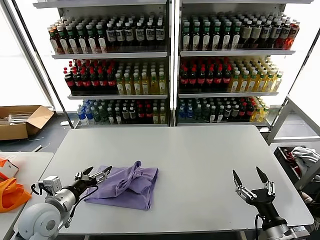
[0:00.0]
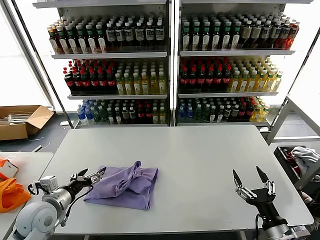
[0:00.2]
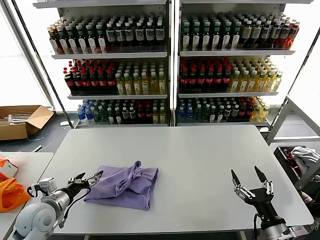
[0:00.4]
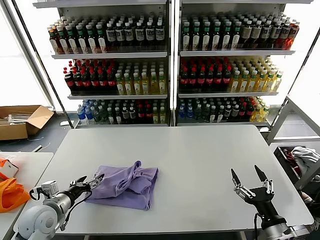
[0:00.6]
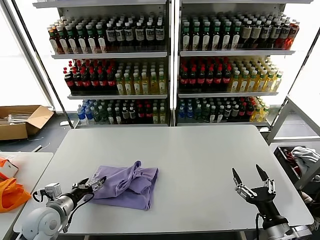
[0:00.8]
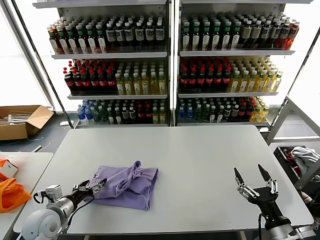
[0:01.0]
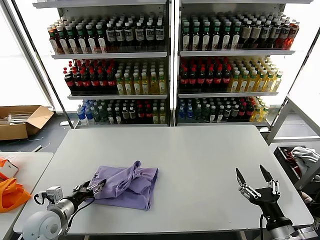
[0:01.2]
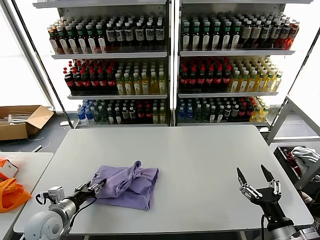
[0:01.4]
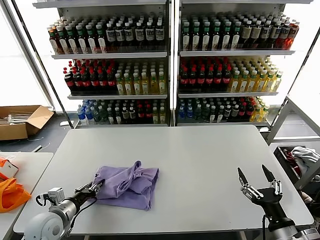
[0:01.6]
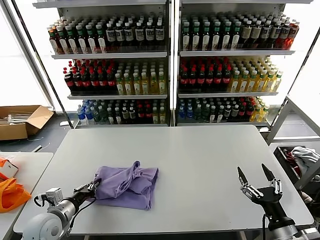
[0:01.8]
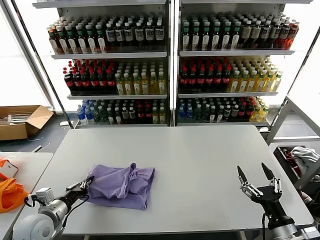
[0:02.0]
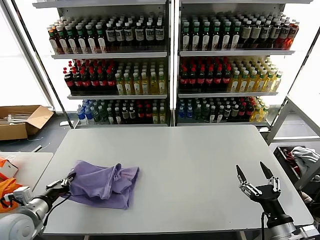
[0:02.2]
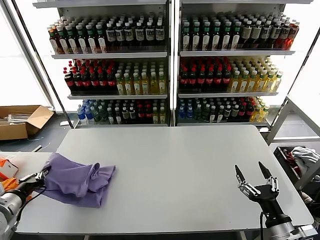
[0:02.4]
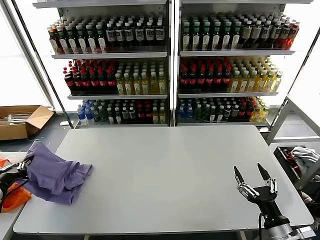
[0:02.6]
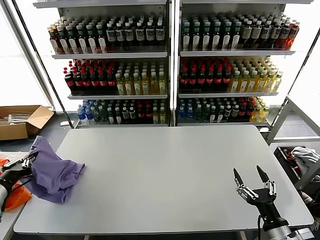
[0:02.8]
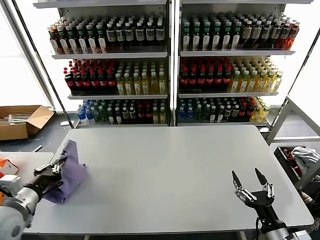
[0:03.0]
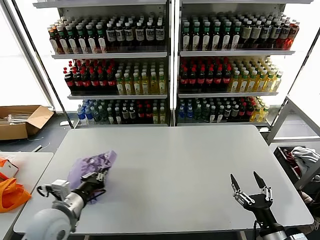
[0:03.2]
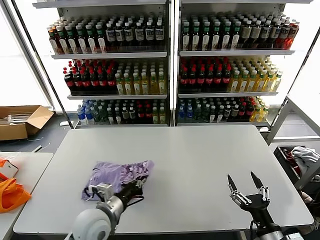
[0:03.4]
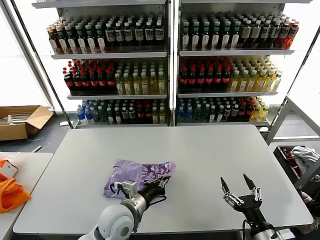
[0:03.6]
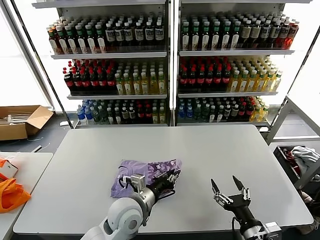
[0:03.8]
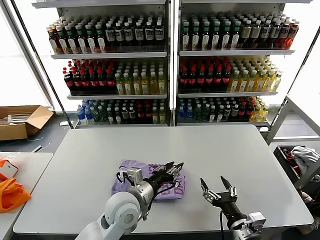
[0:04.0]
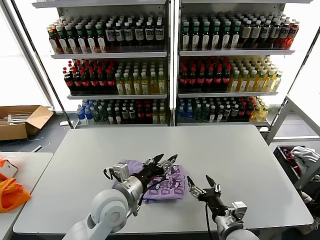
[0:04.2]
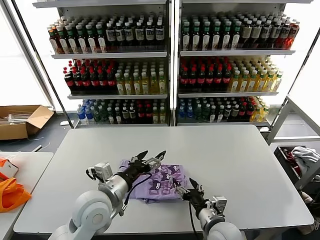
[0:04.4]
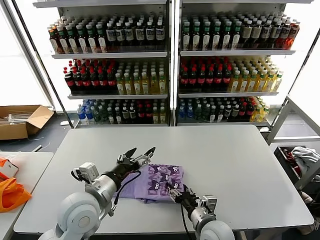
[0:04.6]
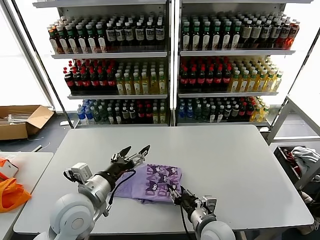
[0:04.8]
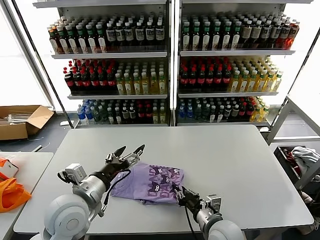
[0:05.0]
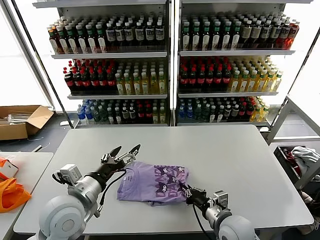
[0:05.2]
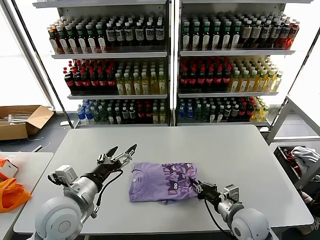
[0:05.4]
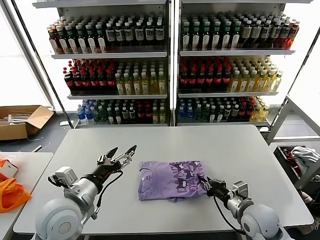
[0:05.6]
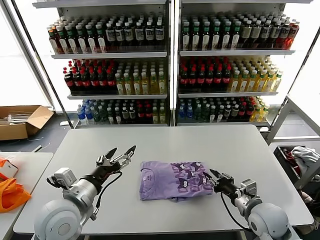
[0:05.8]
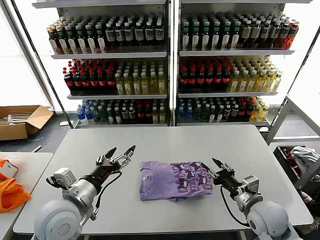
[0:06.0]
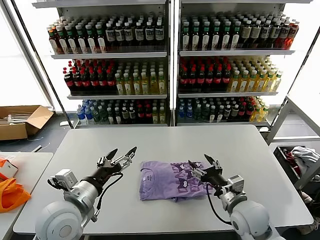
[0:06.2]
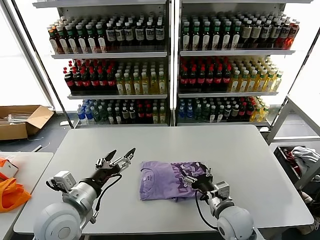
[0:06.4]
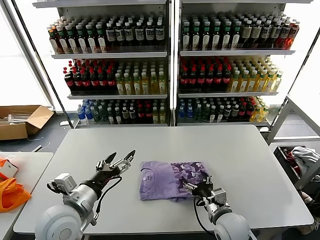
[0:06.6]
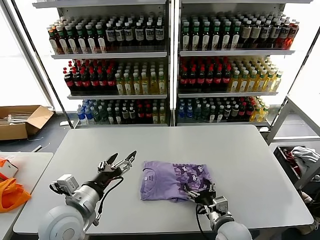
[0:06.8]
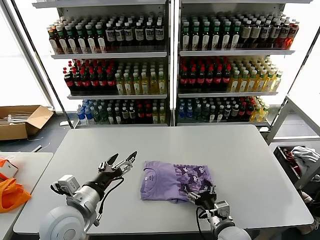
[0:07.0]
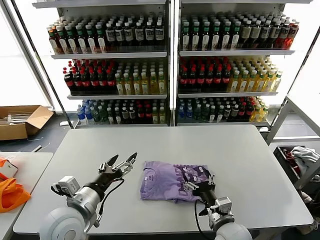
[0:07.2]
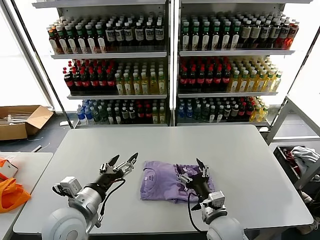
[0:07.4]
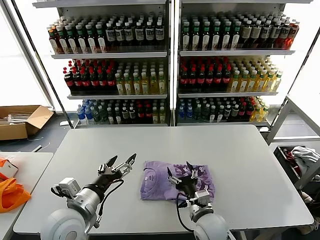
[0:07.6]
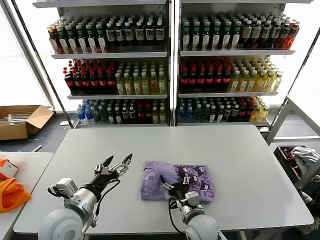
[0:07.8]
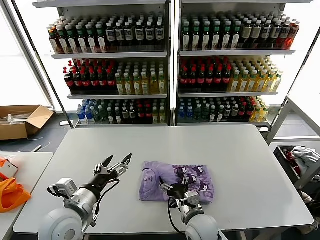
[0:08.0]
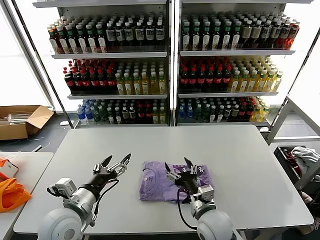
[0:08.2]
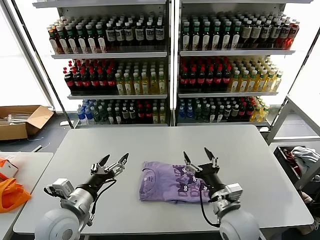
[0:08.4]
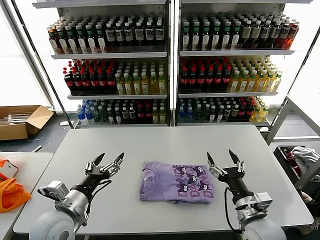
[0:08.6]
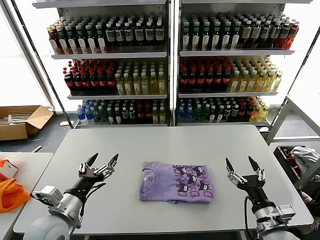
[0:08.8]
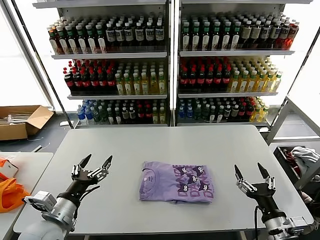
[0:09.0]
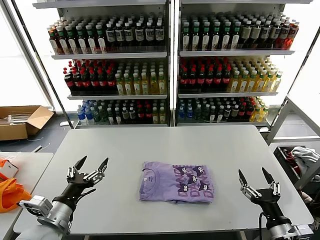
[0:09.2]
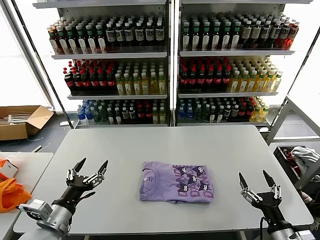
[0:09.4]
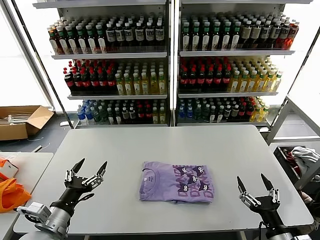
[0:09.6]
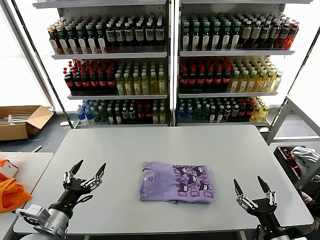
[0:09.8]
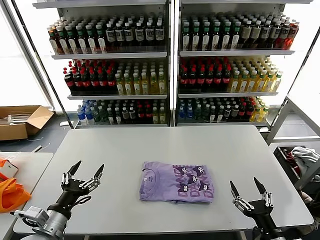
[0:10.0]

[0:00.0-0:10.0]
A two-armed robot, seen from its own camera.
Task of the whole recording: fold and organize the clothes.
Step, 0:00.0 to 0:03.8: Flip the folded clothes over with left gripper.
Step, 0:04.0 to 0:08.0: Drag the clothes to the center of the table.
0:00.0 to 0:01.4: The left gripper shifts about 5 cm downward.
0:01.4 to 0:02.8: The left gripper moves upward and to the left, roughly 20 cm, and closes up.
0:02.8 to 0:04.2: The right gripper heads to the left and forward, covering roughly 10 cm. The left gripper shifts about 35 cm to the right, and opens up.
0:04.2 to 0:05.8: The right gripper shifts about 10 cm forward and to the right, and closes up, while the left gripper is displaced to the left by some 10 cm, and opens its fingers.
0:05.8 to 0:07.2: The right gripper shifts approximately 10 cm to the left, and opens.
0:07.2 to 0:08.6: The right gripper goes some 5 cm upward, and moves approximately 10 cm to the left and comes back.
0:08.6 to 0:10.0: The right gripper shifts some 15 cm backward and to the right, while the left gripper heads backward, covering roughly 5 cm.

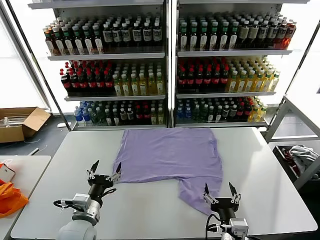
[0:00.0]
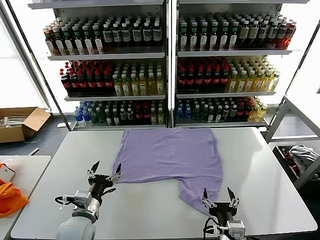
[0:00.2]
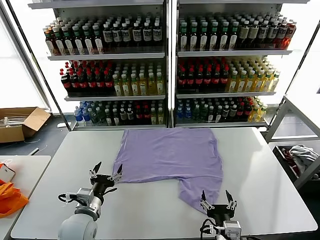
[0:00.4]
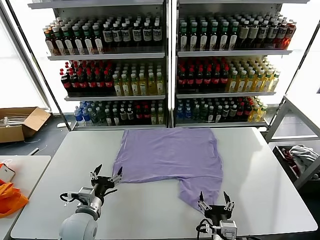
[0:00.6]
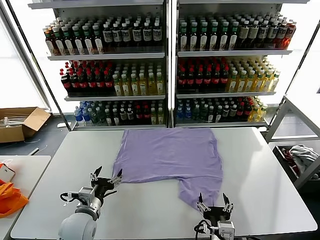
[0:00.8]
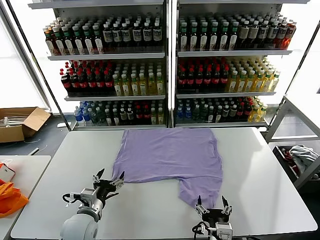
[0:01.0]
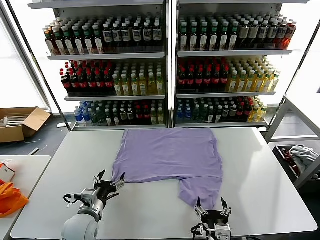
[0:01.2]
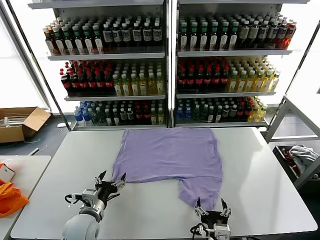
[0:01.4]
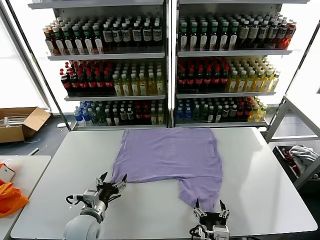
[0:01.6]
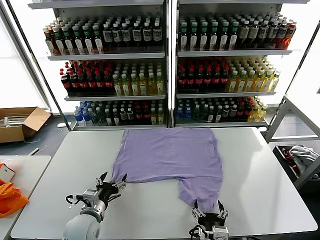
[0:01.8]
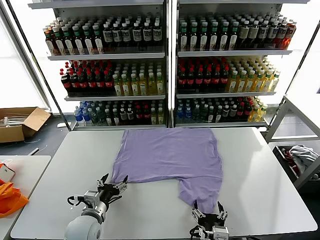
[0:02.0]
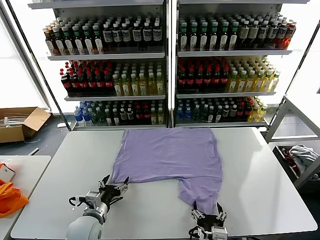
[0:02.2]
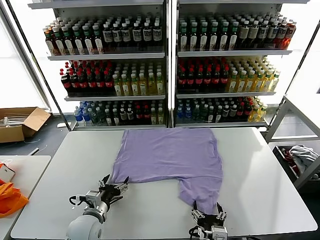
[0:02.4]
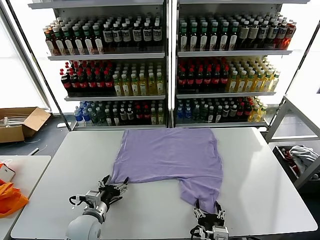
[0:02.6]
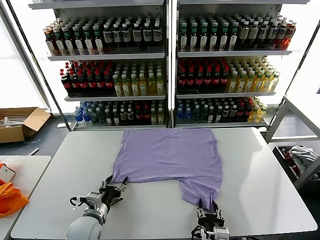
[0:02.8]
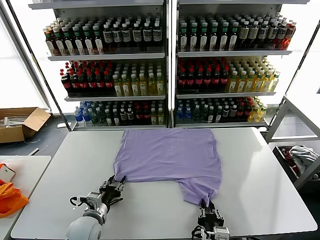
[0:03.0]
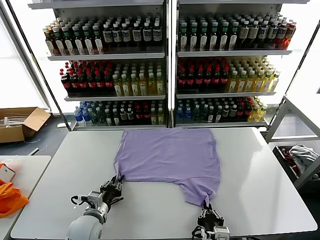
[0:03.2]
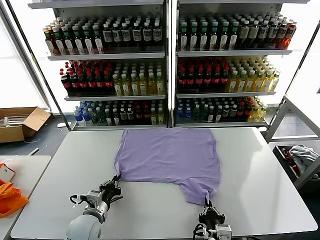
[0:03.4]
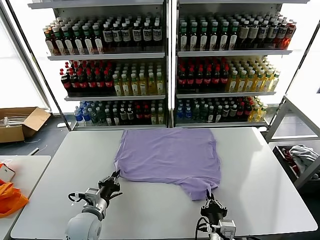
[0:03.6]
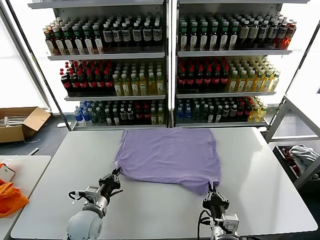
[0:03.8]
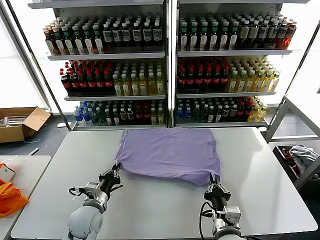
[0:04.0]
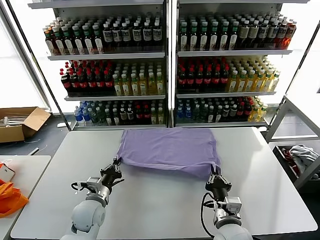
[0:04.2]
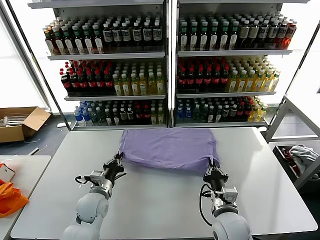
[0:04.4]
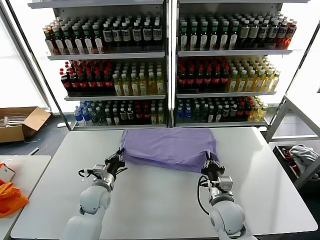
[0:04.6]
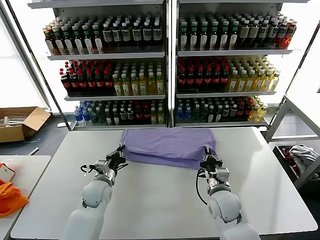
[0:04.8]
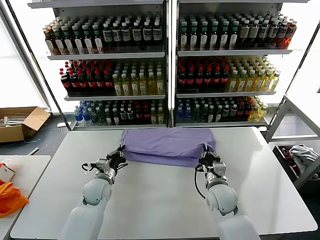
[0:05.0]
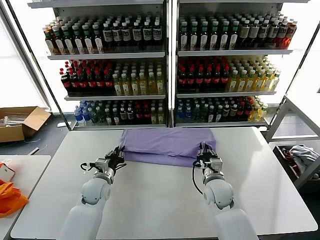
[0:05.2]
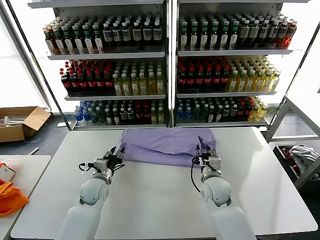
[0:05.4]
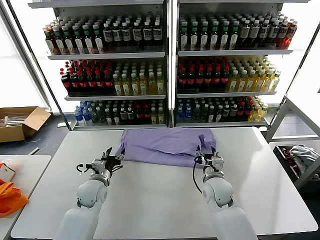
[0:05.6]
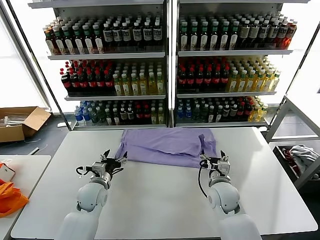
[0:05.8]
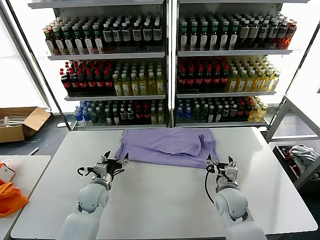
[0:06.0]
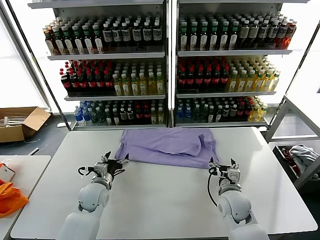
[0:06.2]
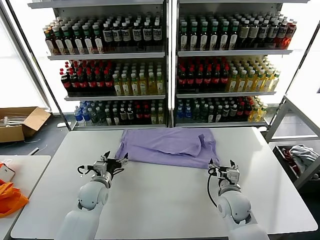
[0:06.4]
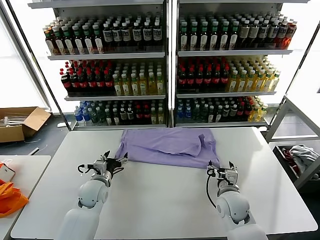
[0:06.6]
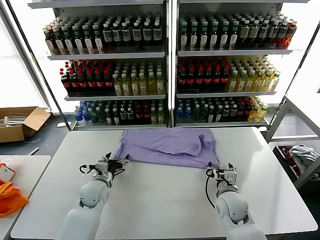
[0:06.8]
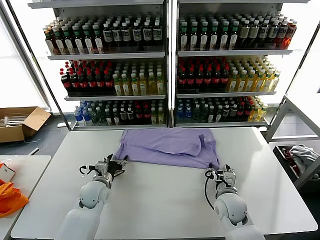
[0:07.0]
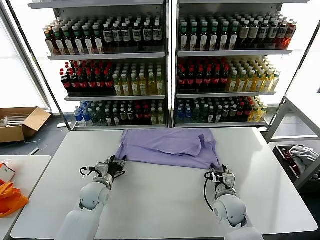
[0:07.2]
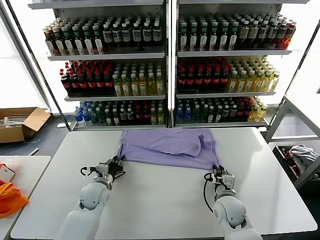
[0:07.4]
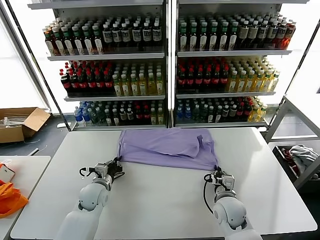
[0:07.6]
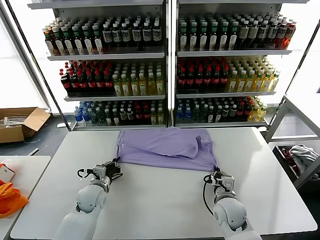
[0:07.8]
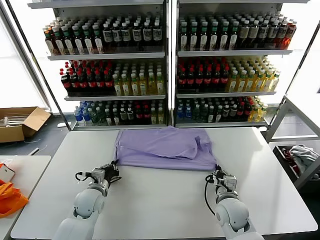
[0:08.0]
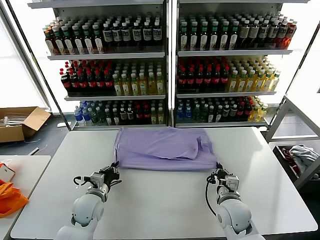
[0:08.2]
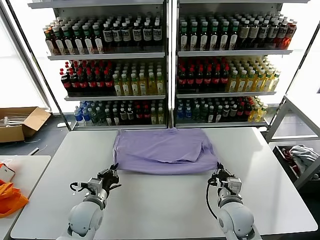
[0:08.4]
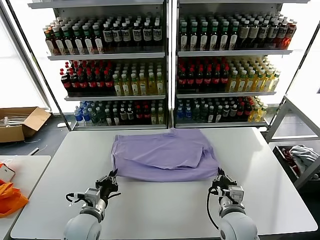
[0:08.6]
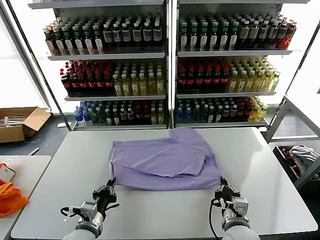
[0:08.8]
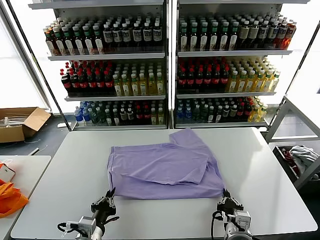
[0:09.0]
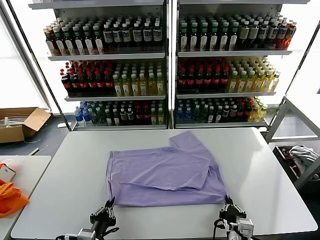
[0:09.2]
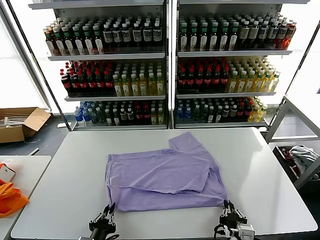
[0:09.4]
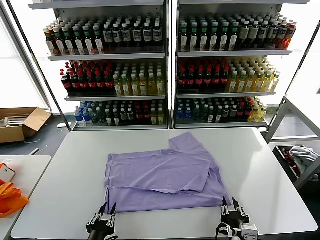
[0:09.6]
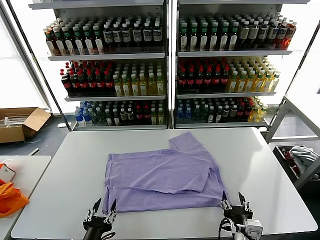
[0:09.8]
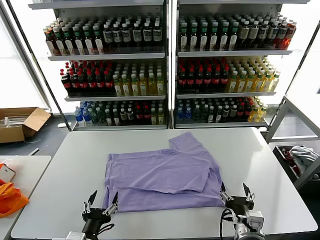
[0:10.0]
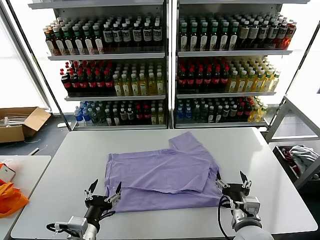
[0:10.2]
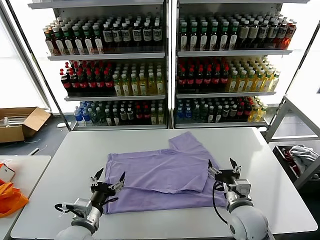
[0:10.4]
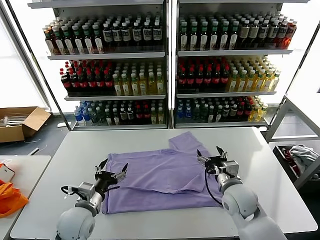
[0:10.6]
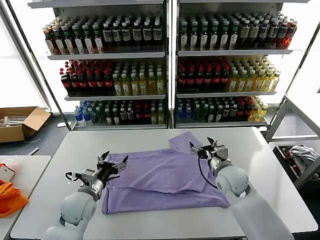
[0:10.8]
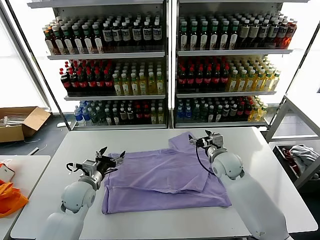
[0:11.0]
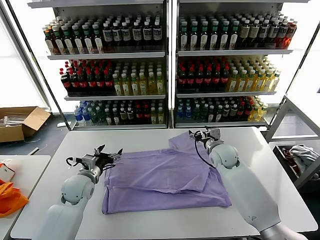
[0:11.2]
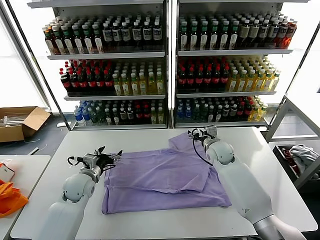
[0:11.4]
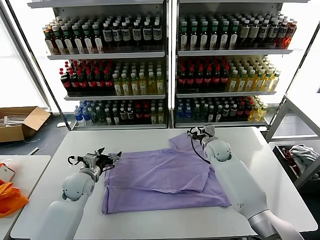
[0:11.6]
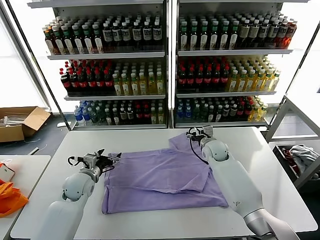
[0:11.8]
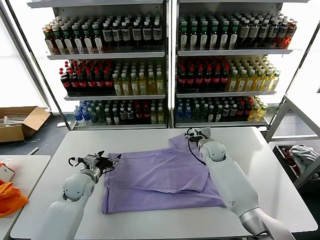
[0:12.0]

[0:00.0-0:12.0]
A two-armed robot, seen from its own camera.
Task of the whole recording: fold and organize the clothes.
Step, 0:00.0 to 0:03.6: use both grippers simultaneously to clamp the lower edge of the clothing fabric.
Step, 0:03.8 to 0:05.4: use both grippers to drag the lower edge of the fabric forward and fold it over the upper edge.
Step, 0:05.6 to 0:09.6: Drag the clothes downward with both gripper.
0:01.6 to 0:03.0: The right gripper closes up. The left gripper closes up.
0:03.0 to 0:04.4: The left gripper travels forward by approximately 5 cm, and closes its fingers; the right gripper is displaced forward by about 15 cm.
0:04.4 to 0:06.0: The left gripper opens, while the right gripper heads forward, covering about 5 cm, and opens its fingers.
0:06.0 to 0:07.6: The right gripper closes its fingers. The left gripper closes its fingers.
0:07.6 to 0:09.0: The grippers both shift backward by roughly 15 cm.
0:09.0 to 0:10.4: The left gripper travels backward and back again, about 5 cm each way, and opens its fingers; the right gripper heads forward, covering some 10 cm, and opens its fingers.
0:10.4 to 0:12.0: The grippers both shift forward by some 20 cm.
